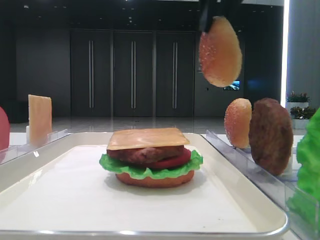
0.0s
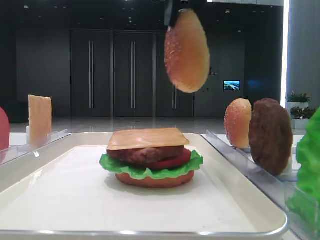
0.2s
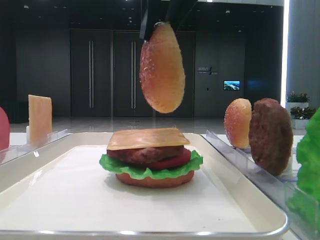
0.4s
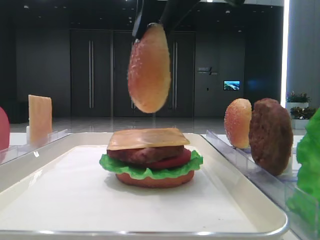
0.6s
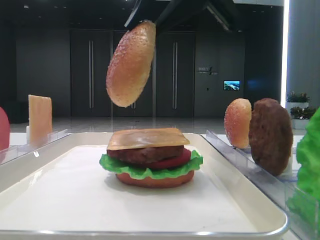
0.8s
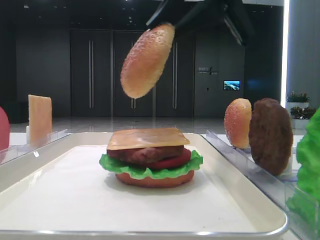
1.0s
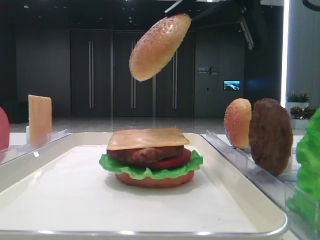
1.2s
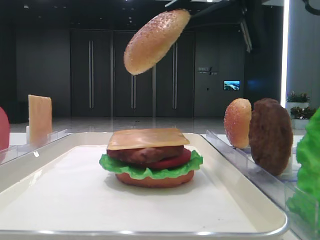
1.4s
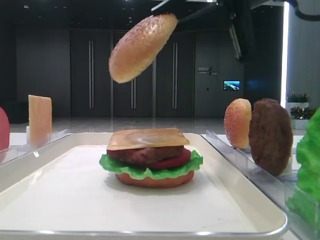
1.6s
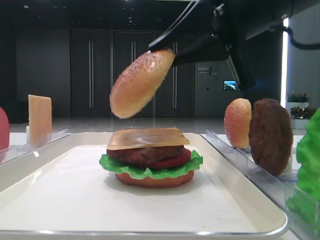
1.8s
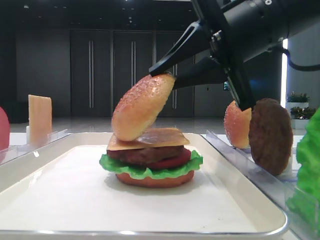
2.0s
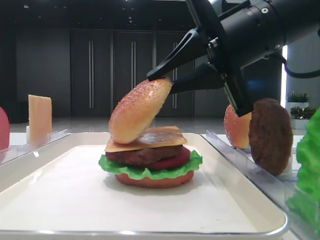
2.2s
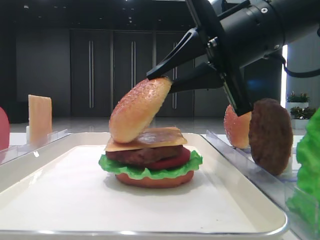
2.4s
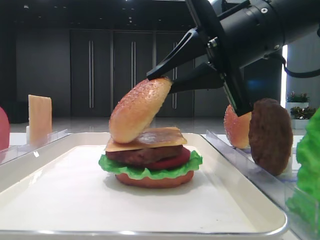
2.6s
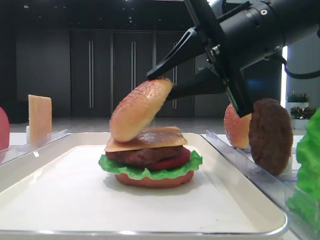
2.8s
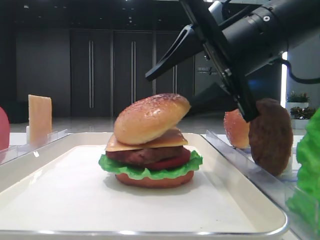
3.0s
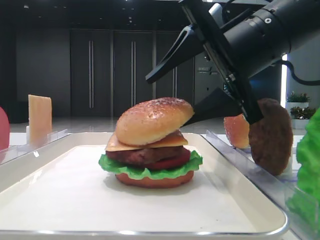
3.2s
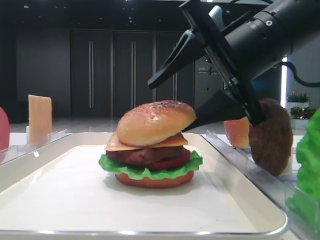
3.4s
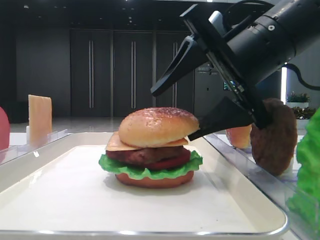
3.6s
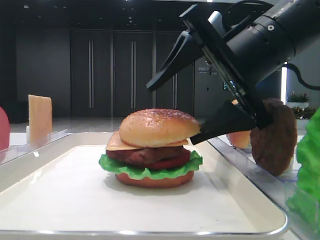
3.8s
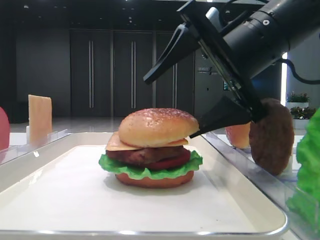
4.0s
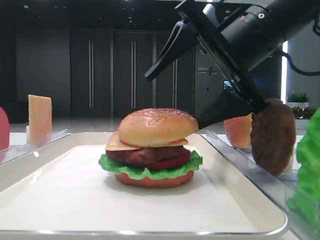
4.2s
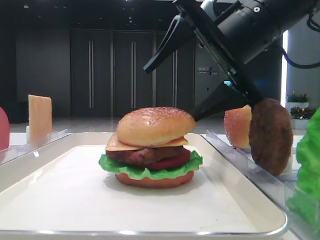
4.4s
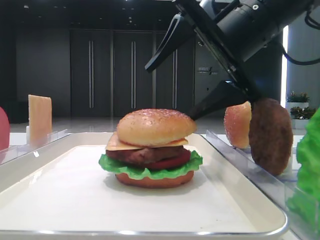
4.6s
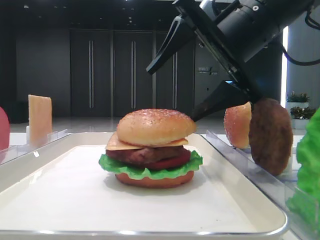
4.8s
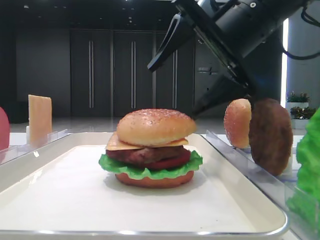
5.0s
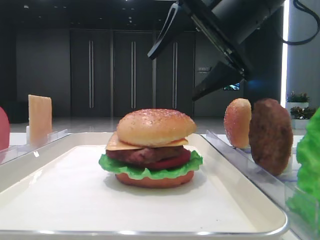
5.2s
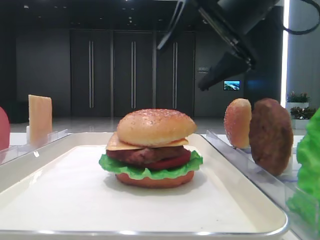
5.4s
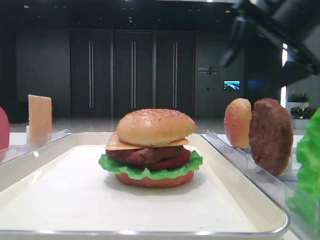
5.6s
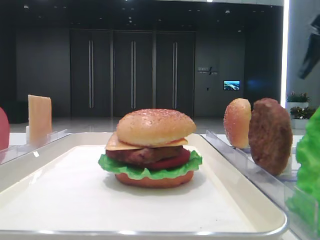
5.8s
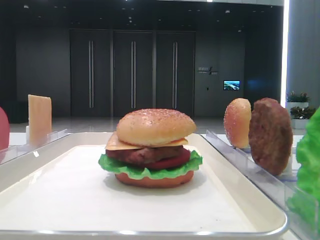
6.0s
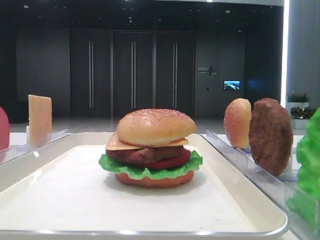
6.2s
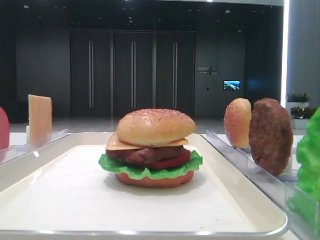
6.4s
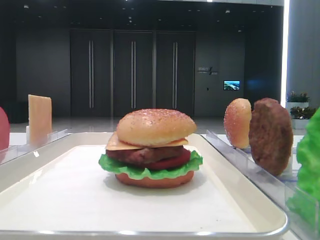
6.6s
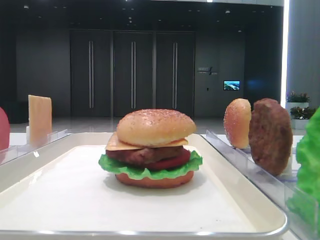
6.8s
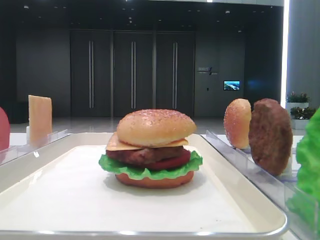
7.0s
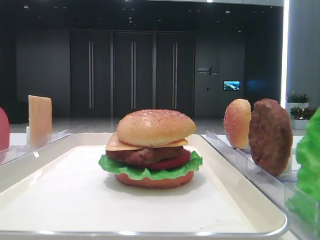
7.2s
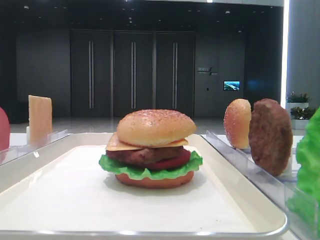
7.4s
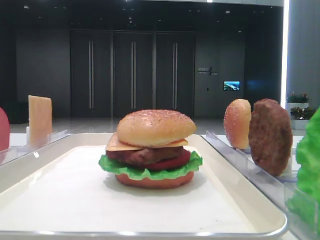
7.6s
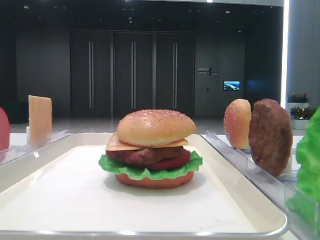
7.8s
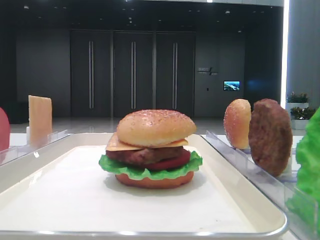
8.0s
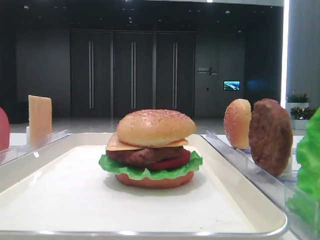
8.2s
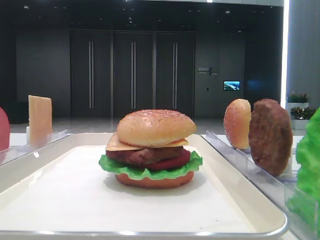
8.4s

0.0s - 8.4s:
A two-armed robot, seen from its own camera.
Step, 0.0s - 4.8s: Place the top bread slice on the cheese with the right hand.
0.0s - 1.4s: The right gripper heads downward, covering some 5 cm.
1.4s - 2.8s: The right gripper heads downward, covering about 5 cm.
2.8s - 4.2s: The right gripper opens its fingers.
4.2s - 5.6s: The right gripper heads to the right, forward and upward, covering roughly 15 cm.
5.6s - 7.0s: The right gripper travels backward by about 25 cm.

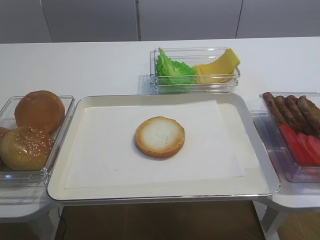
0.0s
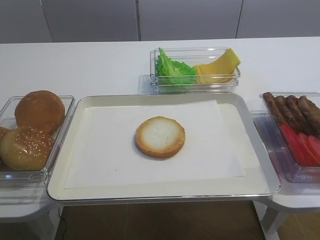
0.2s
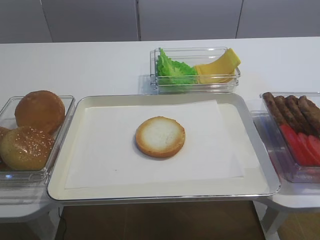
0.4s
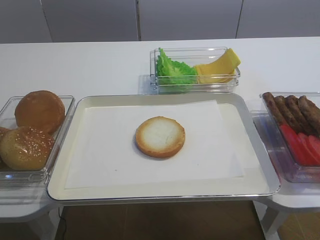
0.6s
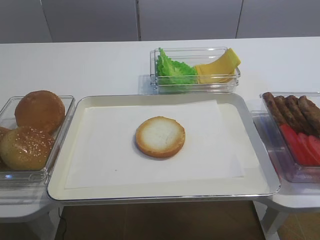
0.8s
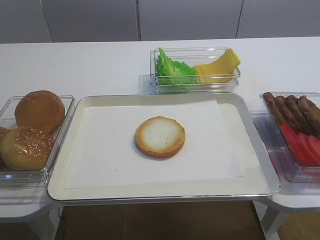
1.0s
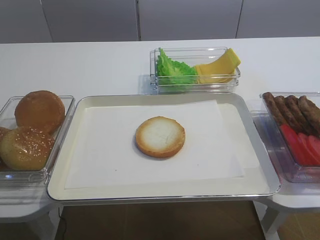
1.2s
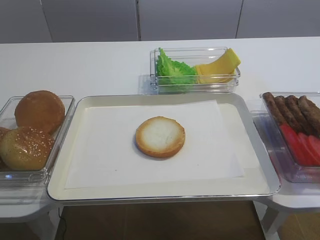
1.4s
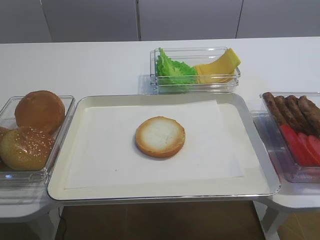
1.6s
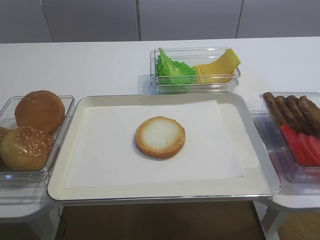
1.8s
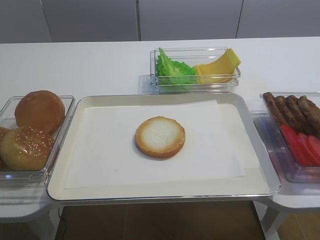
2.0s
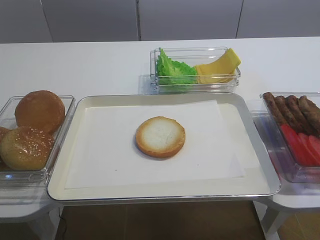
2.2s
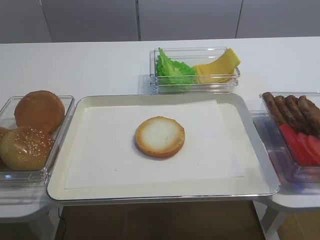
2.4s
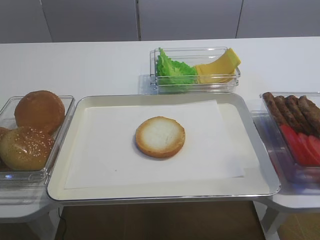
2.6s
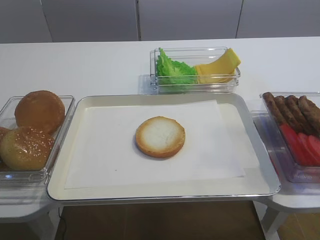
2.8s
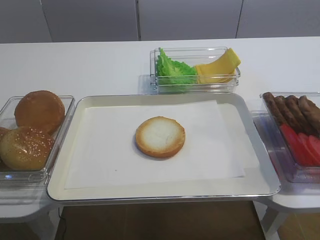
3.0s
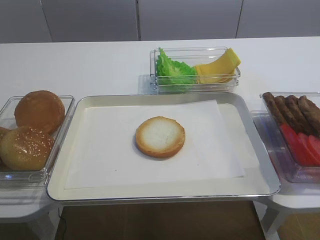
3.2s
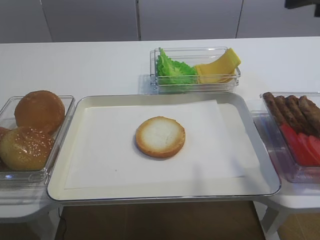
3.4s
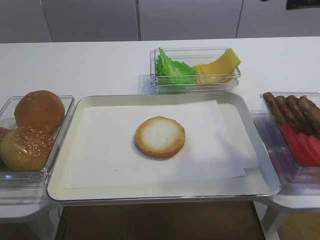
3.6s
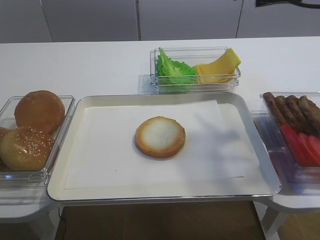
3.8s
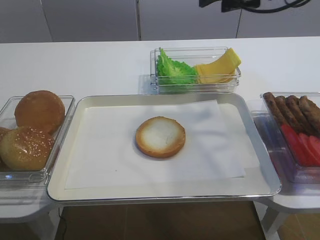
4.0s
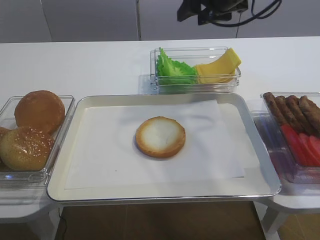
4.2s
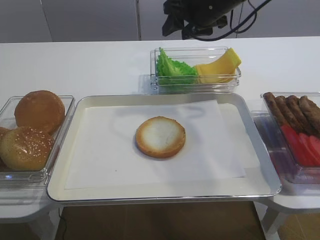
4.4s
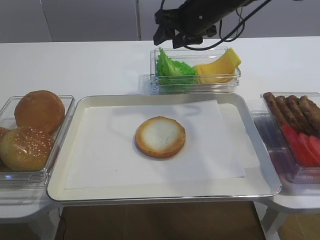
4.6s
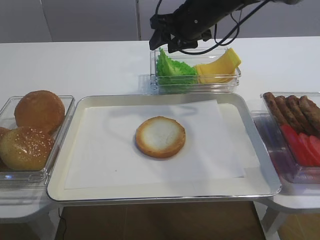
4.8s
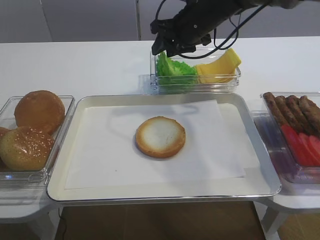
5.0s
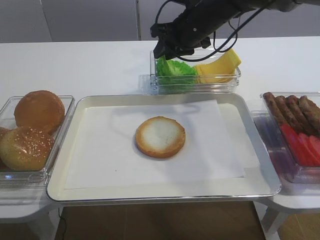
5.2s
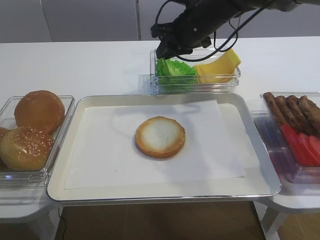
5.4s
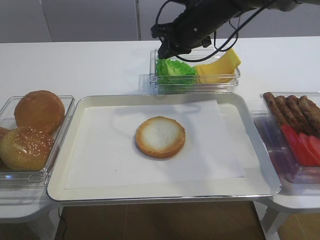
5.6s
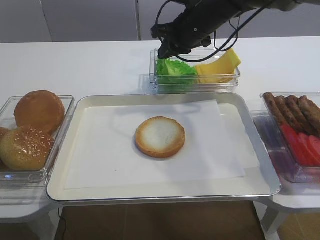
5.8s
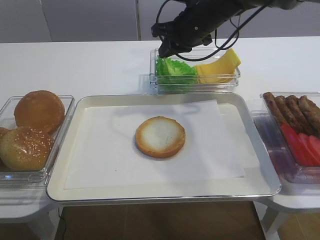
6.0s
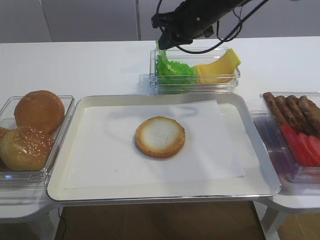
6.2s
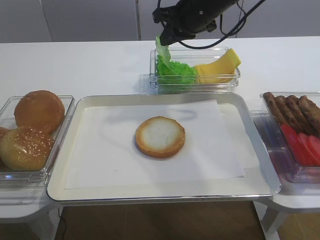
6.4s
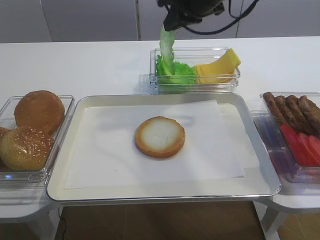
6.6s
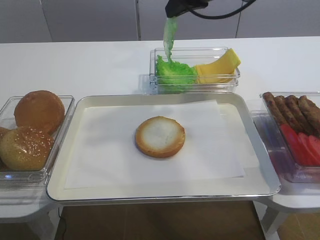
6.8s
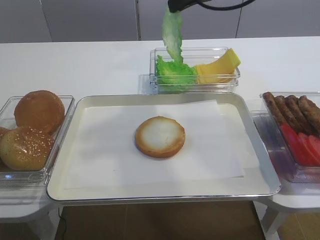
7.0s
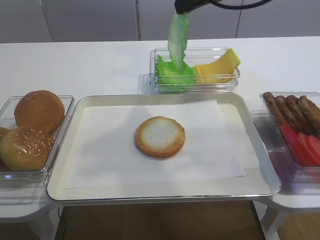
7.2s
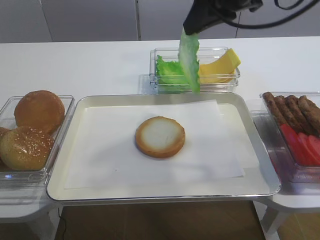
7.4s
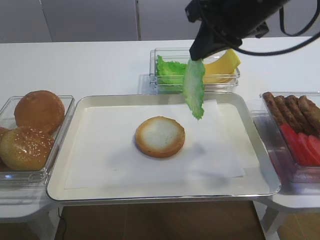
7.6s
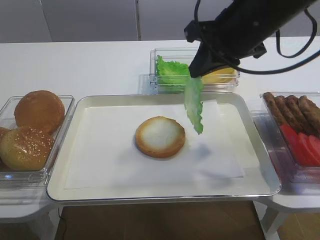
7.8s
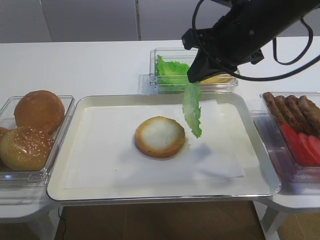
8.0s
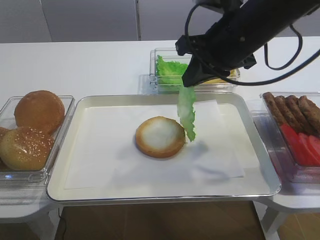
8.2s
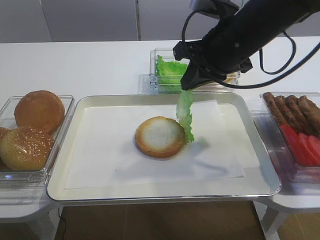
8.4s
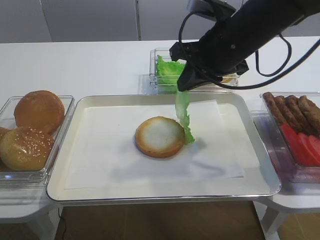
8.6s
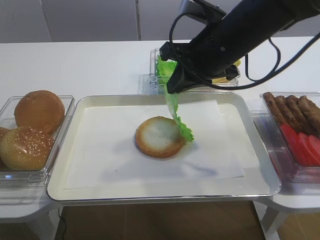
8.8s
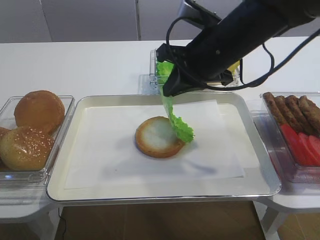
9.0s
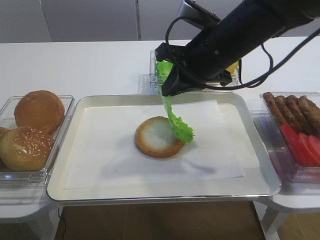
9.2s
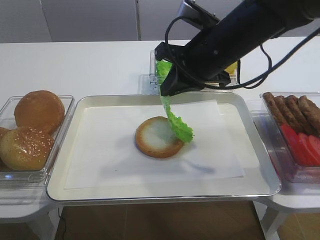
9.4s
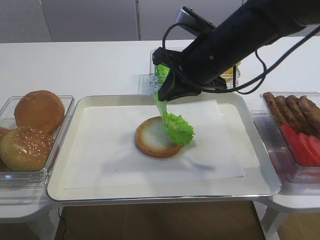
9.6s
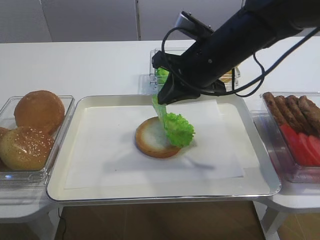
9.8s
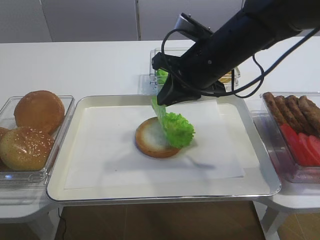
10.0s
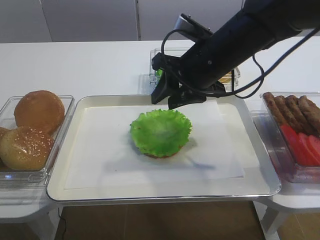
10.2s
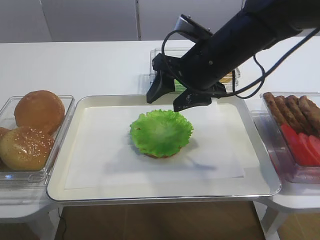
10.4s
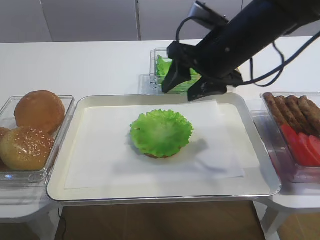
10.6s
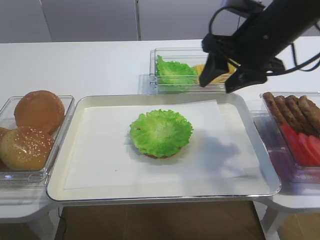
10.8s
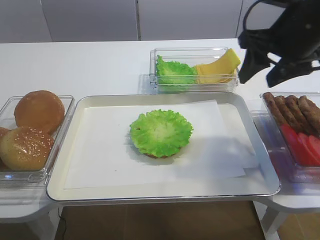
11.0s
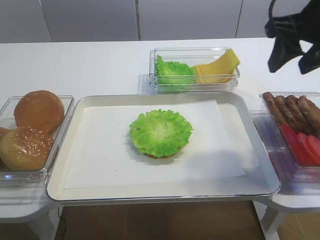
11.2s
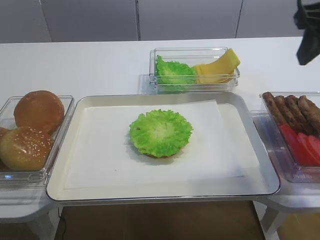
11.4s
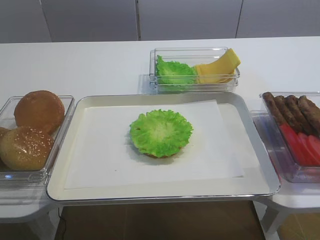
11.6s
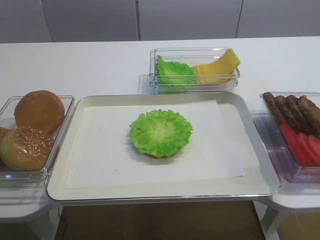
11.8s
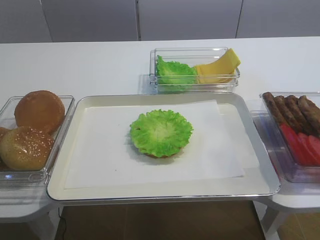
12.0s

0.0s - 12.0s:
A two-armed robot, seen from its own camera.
Step, 0.0s - 6.4s: Pick up the lettuce leaf with the right gripper.
Step, 6.6s - 10.4s: Place the lettuce leaf on the bread slice with the right gripper.
3.0s - 4.4s: The right gripper is displaced forward and to the left by roughly 35 cm.
4.4s - 6.0s: The right gripper closes.
6.0s - 7.6s: The right gripper goes roughly 15 cm backward and upward.
7.6s - 9.0s: The right gripper shifts approximately 5 cm downward.
9.0s - 10.4s: The right gripper opens its fingers.
10.4s - 12.0s: The right gripper is displaced backward, to the right and upward by some 30 cm.

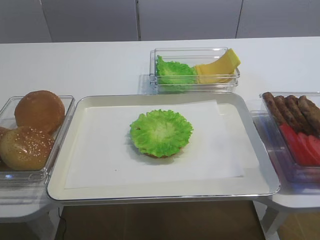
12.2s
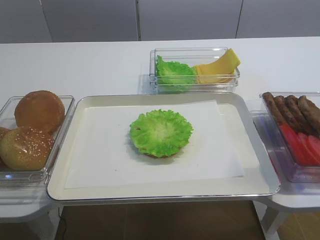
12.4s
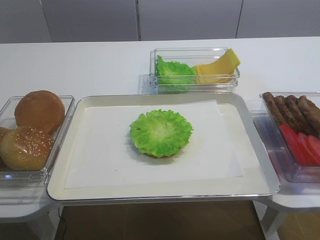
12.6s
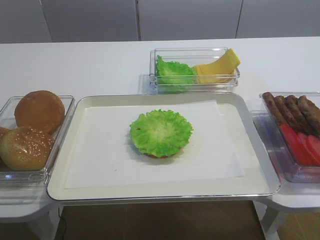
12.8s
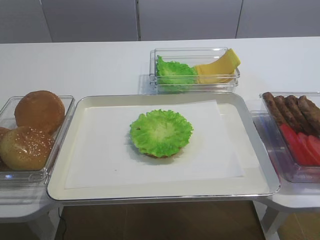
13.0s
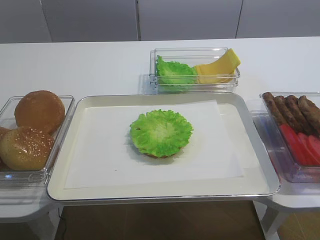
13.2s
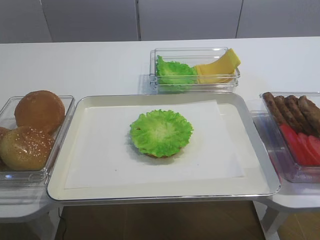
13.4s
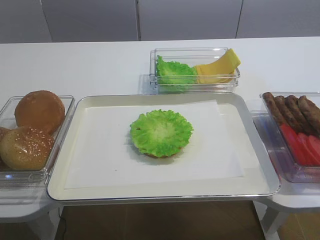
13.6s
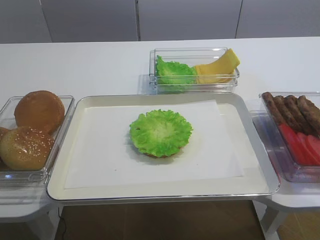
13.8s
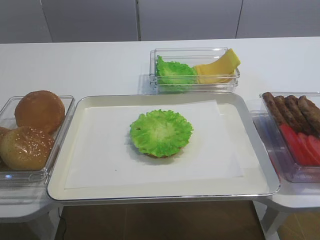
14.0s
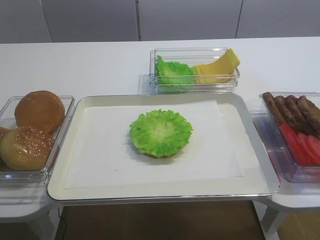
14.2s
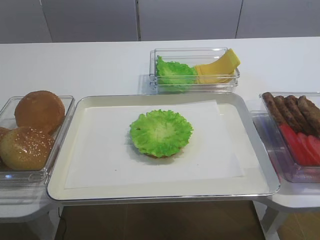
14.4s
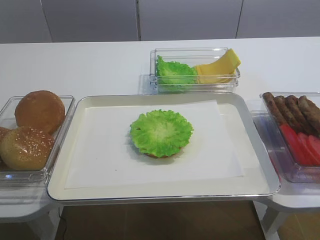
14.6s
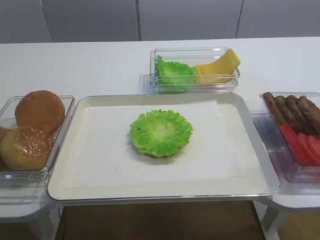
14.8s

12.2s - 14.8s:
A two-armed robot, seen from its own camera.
12.2s - 13.4s: The right gripper heads downward and backward, covering about 10 cm.
13.4s - 14.8s: Both grippers stay about where they are.
